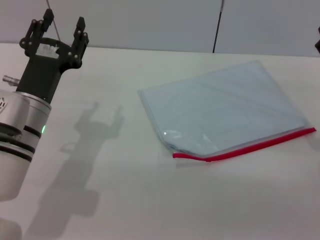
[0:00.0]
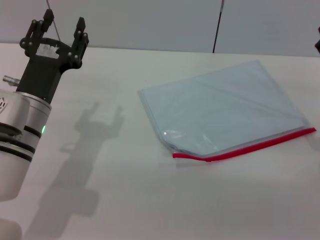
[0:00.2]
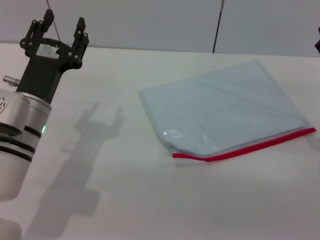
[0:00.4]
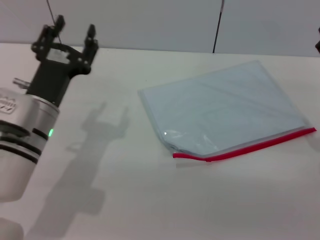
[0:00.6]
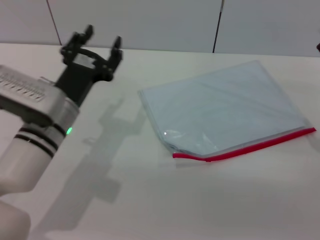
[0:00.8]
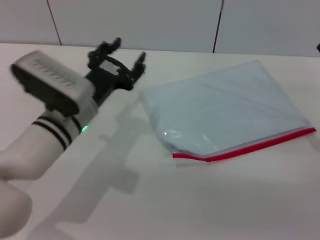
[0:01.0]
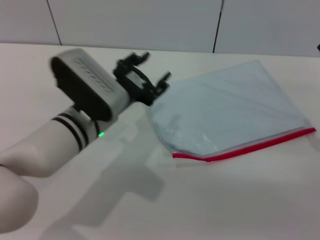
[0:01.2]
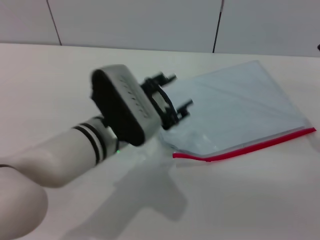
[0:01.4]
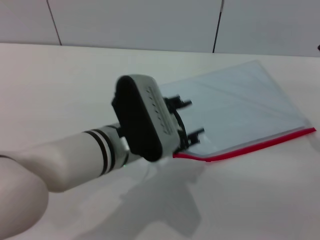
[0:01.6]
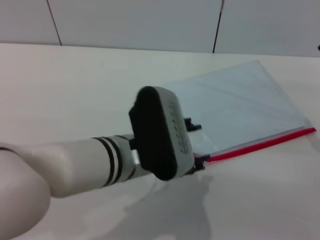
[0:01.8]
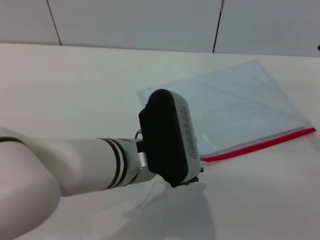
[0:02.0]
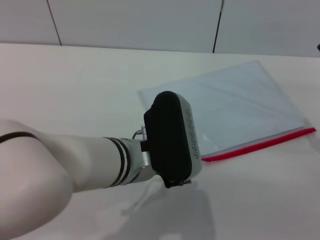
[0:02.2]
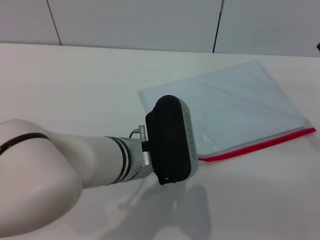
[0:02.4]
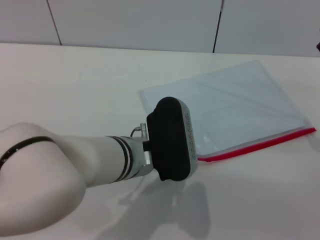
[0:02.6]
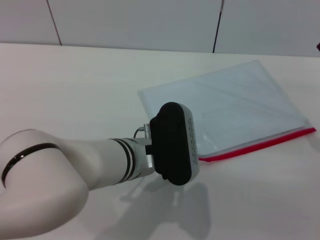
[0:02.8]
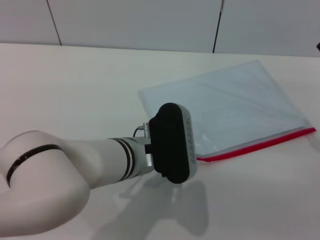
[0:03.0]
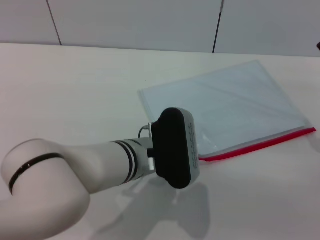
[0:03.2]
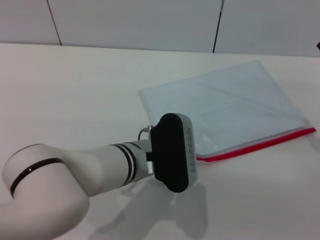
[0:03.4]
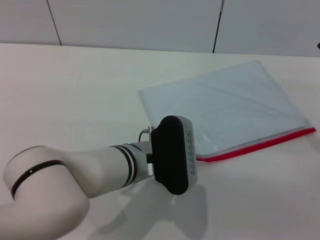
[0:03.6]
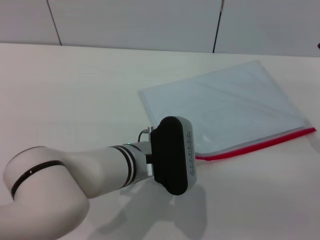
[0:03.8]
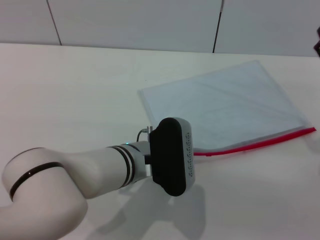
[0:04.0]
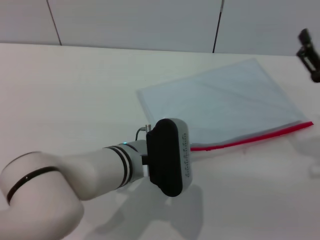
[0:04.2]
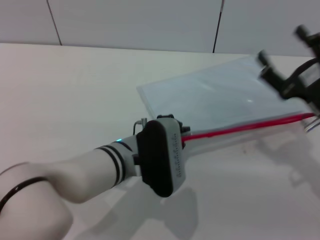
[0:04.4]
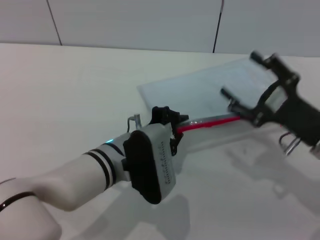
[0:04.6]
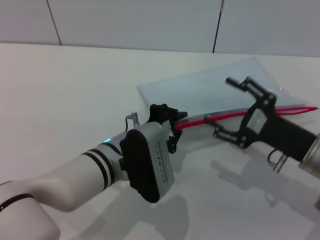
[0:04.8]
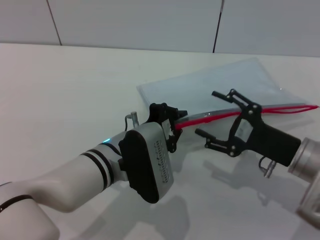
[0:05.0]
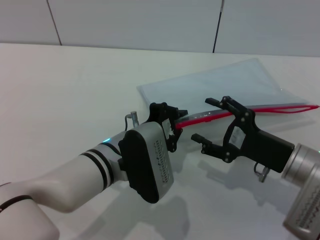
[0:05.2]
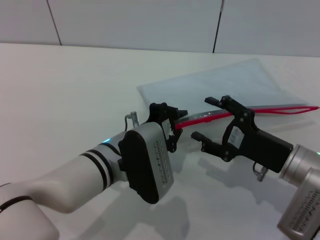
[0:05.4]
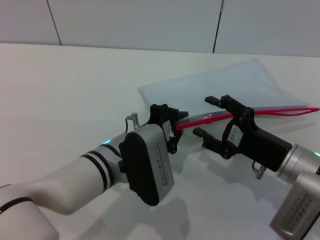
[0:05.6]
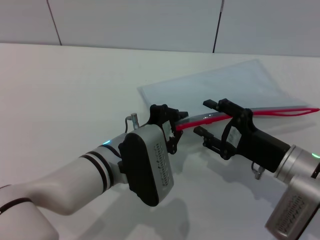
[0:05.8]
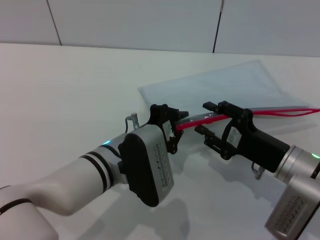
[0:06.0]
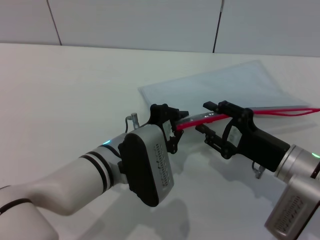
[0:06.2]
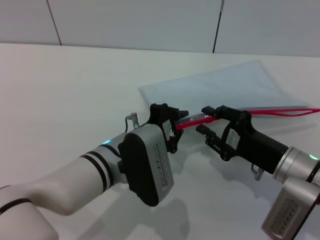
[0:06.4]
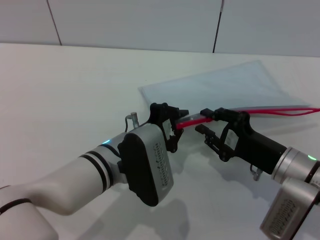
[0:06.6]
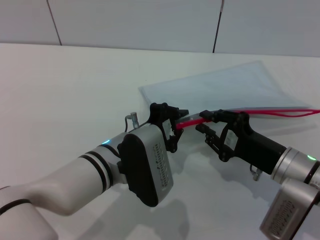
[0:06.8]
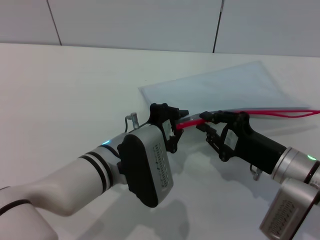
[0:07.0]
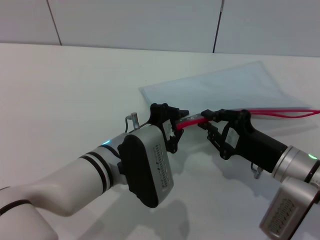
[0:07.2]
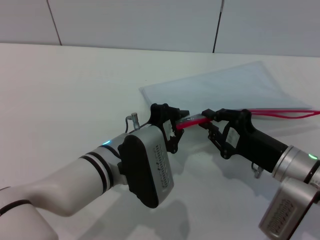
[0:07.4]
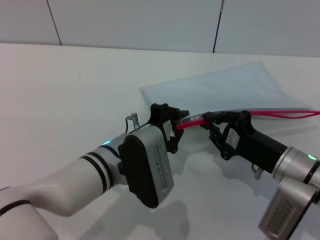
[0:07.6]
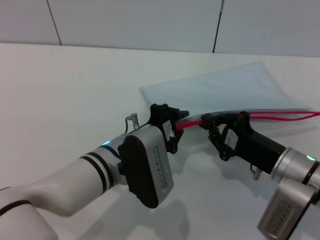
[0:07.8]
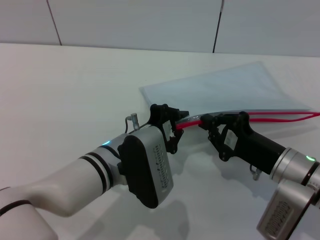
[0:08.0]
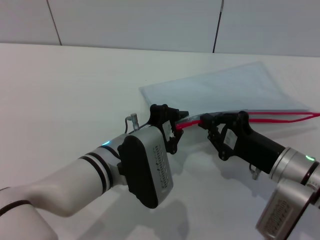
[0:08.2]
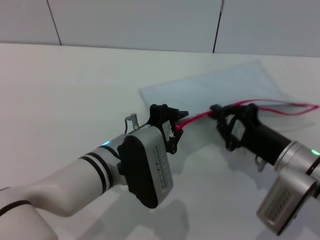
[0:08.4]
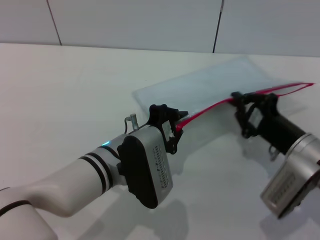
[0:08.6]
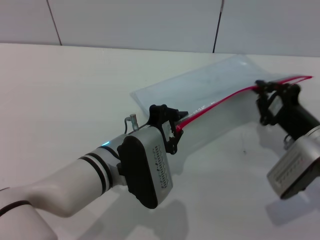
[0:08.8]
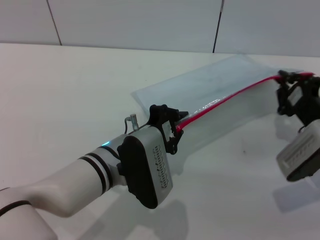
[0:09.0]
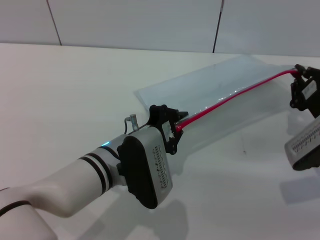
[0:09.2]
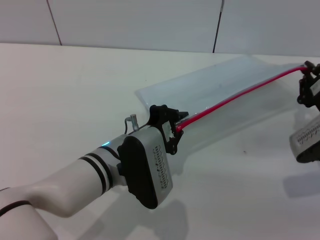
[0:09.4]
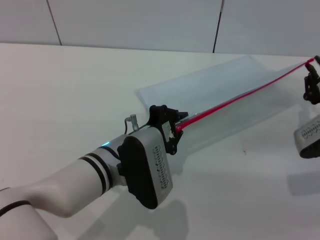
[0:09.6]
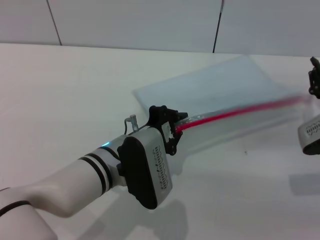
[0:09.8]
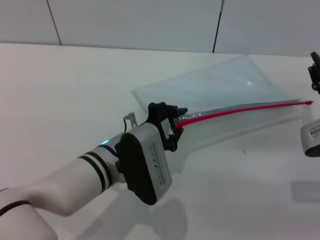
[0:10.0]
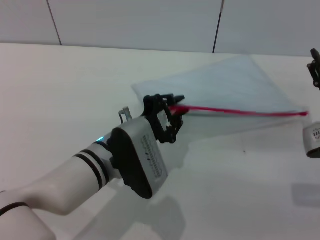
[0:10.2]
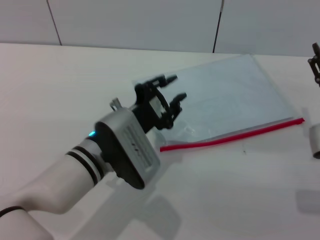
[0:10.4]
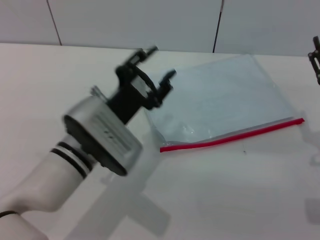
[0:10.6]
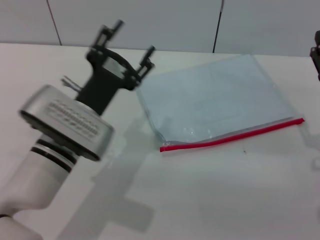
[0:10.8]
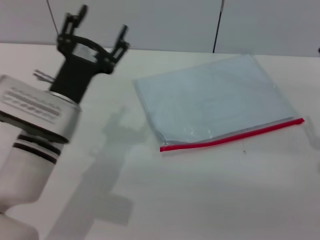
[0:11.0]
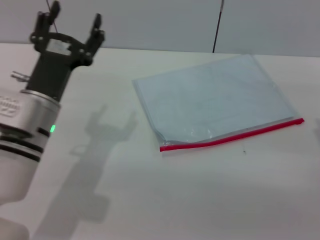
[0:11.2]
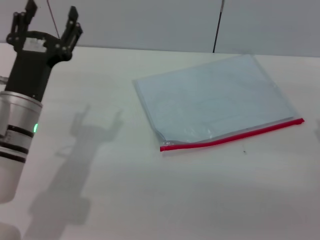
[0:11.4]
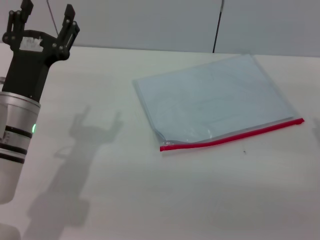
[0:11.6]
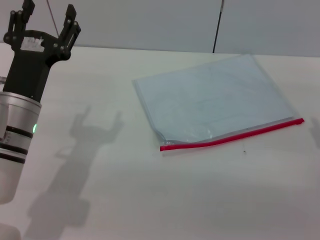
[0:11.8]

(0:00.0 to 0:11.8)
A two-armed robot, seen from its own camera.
Step, 0:00.0 - 0:04.4: Pick up the transparent plastic bag with the left gripper.
Step, 0:04.8 - 0:09.6: Pulling up the zipper on the transparent plastic bag with the right gripper to close it.
Step, 0:09.8 - 0:10.4: Place the transparent plastic bag.
0:00.0 - 0:01.4: The left gripper is displaced to the right by roughly 10 cm.
0:03.0 - 0:04.4: The left gripper closes its fingers.
0:04.4 - 0:06.0: The right gripper is displaced to the left by some 5 cm.
0:06.0 - 0:07.4: The right gripper closes up.
0:08.8 - 0:10.4: The right gripper opens up.
0:10.4 - 0:11.8: The left gripper heads to the left, covering about 10 cm, and opens its fingers.

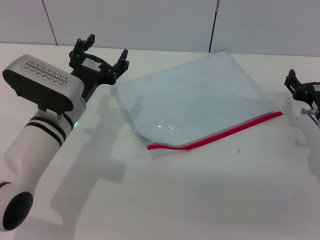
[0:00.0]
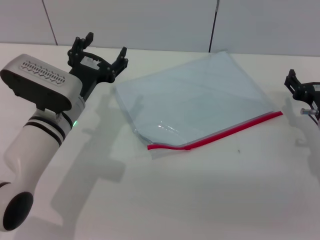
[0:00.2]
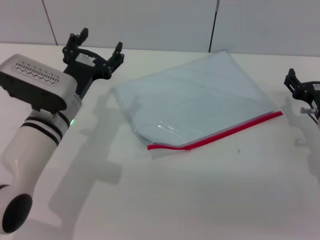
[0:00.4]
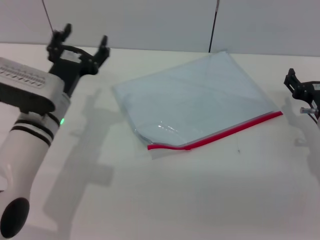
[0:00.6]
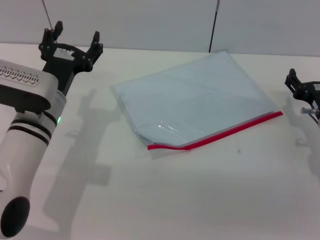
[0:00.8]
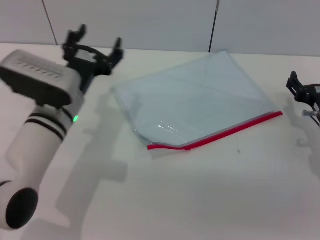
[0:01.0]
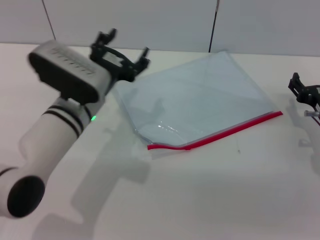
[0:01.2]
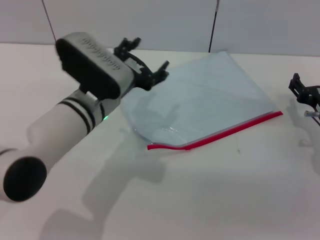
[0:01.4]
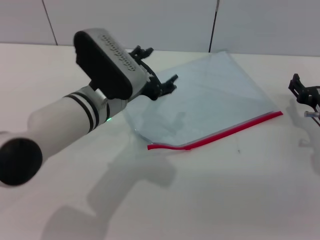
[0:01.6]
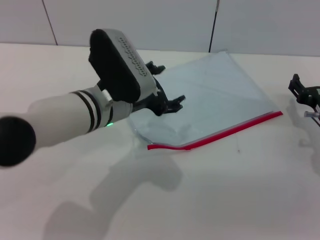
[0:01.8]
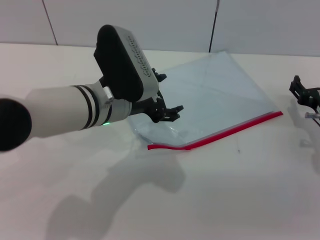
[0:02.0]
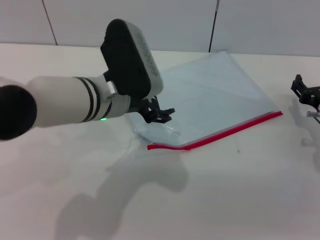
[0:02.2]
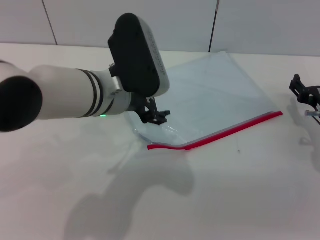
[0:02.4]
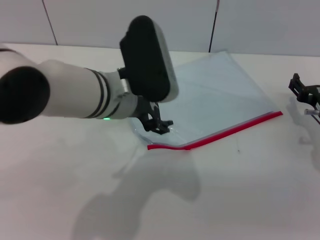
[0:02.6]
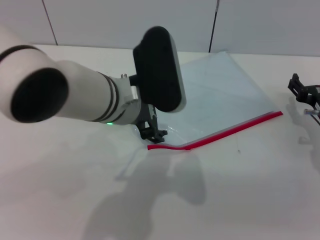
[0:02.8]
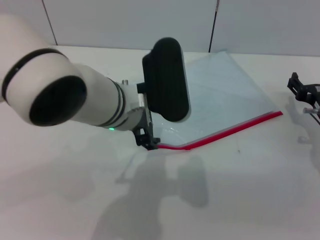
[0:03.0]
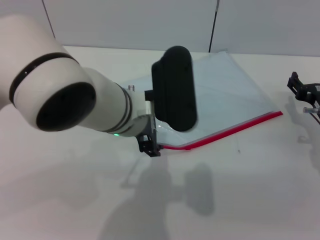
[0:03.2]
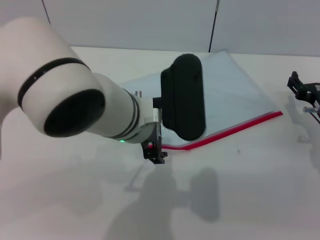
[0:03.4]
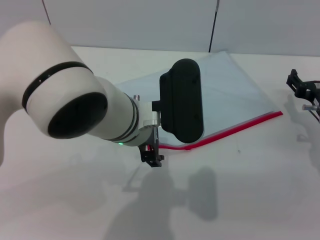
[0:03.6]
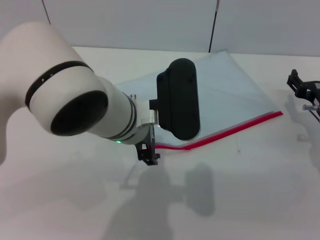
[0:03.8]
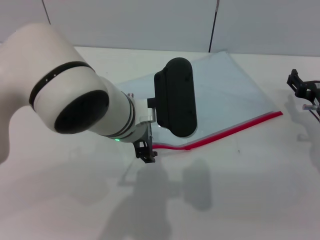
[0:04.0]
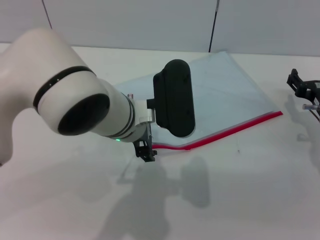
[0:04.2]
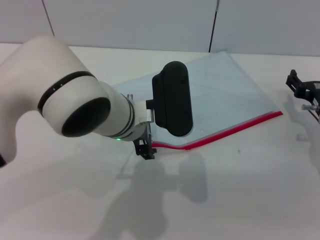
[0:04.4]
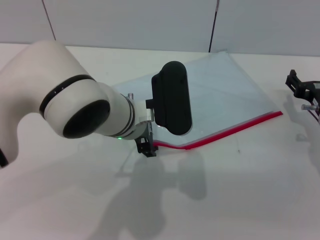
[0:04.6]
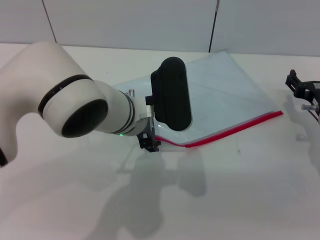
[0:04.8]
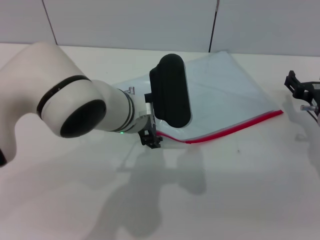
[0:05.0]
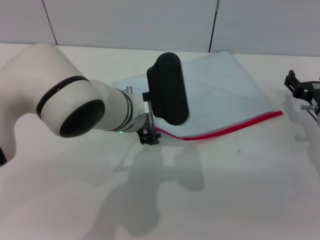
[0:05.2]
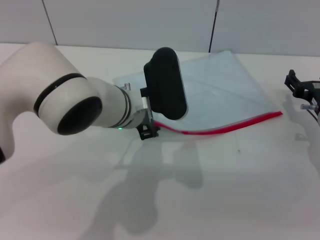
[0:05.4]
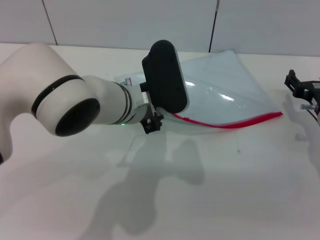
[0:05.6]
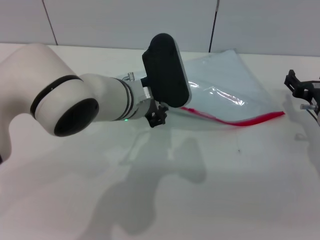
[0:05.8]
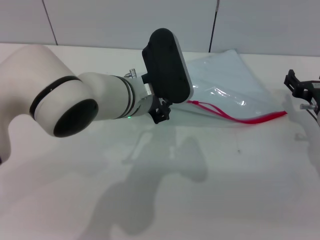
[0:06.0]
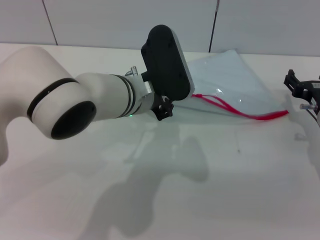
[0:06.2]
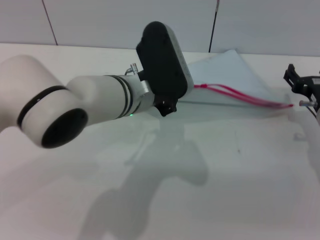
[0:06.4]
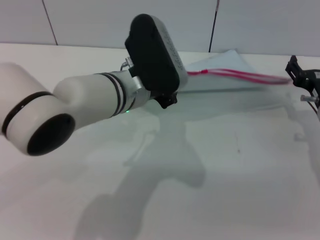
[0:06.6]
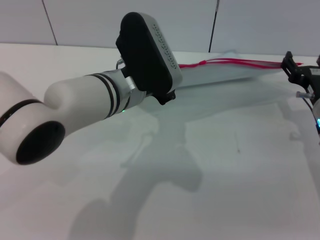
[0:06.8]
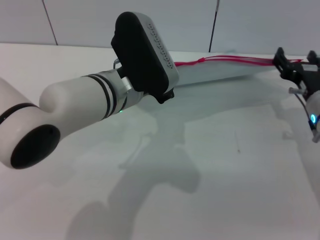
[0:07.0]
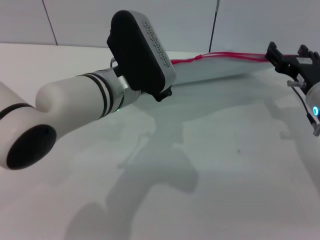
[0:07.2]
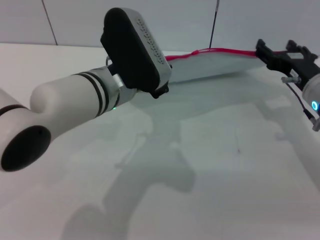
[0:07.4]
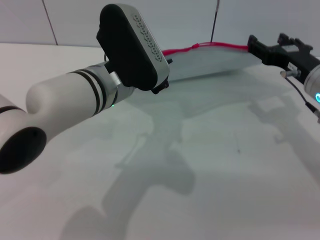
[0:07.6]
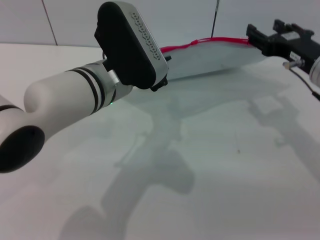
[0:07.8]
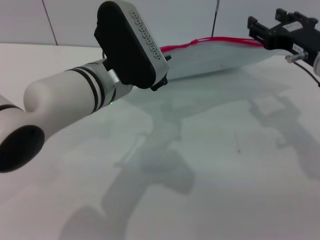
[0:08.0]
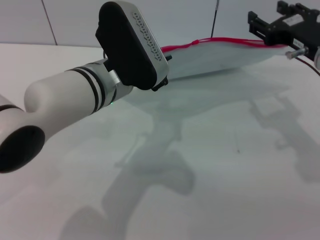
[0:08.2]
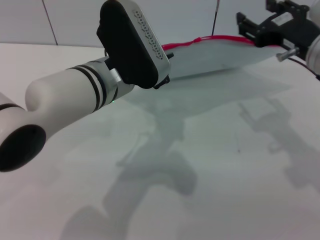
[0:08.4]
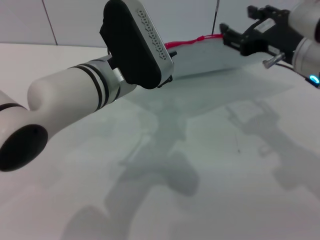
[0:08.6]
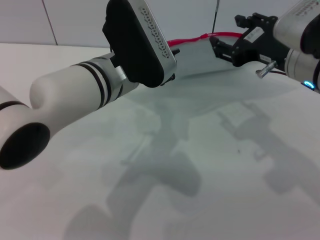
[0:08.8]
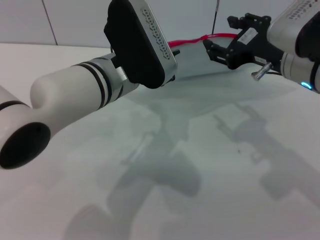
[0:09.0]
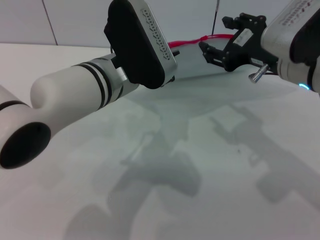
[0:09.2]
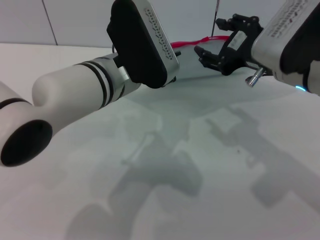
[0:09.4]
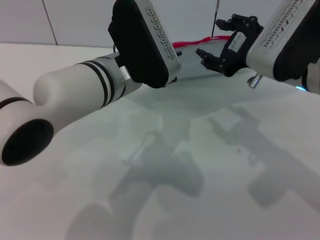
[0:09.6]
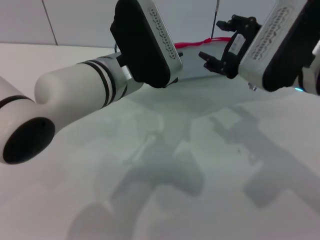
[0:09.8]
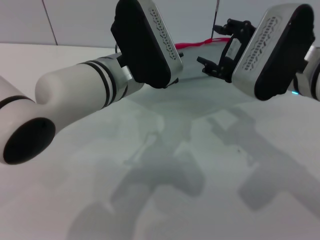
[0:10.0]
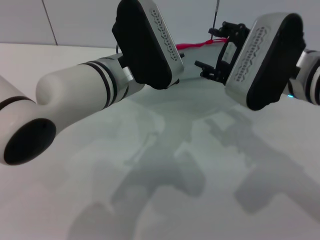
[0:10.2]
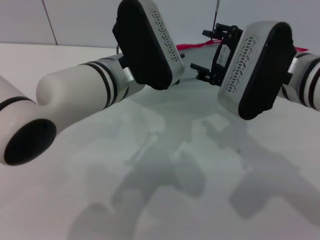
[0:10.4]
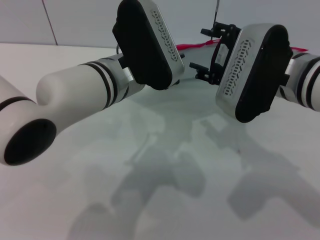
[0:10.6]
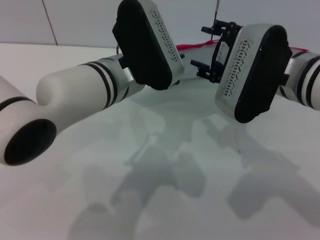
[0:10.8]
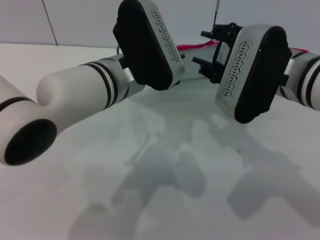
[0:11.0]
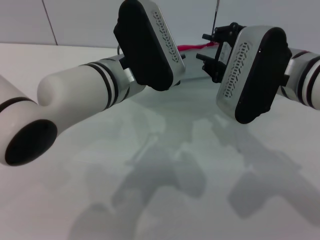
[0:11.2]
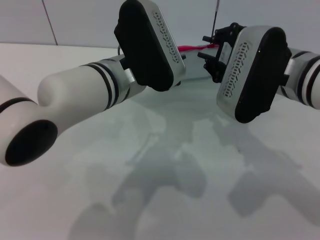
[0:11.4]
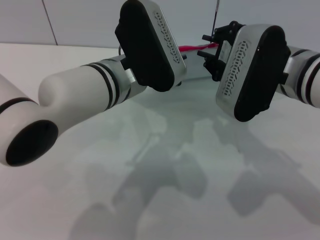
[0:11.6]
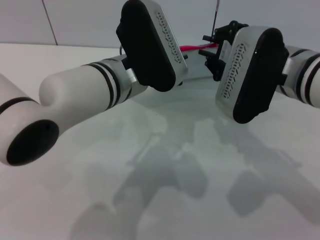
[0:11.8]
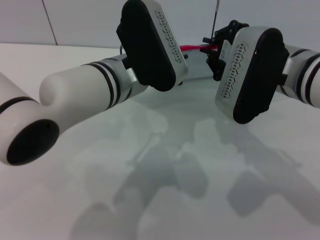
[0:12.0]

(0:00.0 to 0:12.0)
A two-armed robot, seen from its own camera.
Step, 0:00.0 - 0:06.2: Pick up the transparent plastic bag with the left gripper.
0:00.0 - 0:01.6: The left gripper travels to the right by about 5 cm.
0:01.6 - 0:03.0: The left gripper heads upward, covering some 5 cm.
0:03.0 - 0:04.4: The grippers move only a little.
0:04.4 - 0:06.0: The left gripper closes its fingers.
0:06.0 - 0:07.6: The right gripper shifts roughly 10 cm upward.
0:07.6 - 0:09.0: The right gripper travels upward and to the left by roughly 10 cm.
0:10.4 - 0:12.0: The right gripper closes up.
